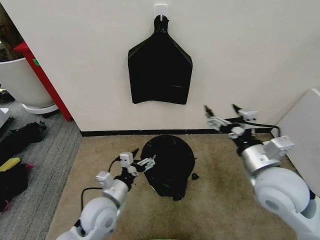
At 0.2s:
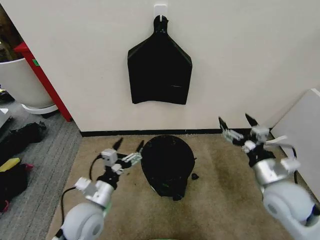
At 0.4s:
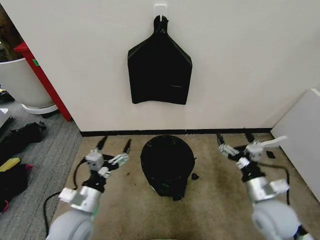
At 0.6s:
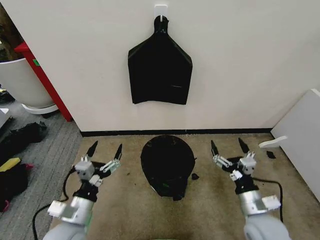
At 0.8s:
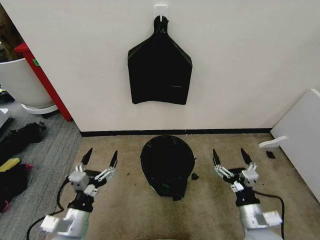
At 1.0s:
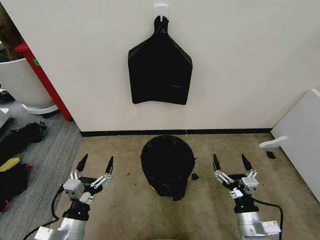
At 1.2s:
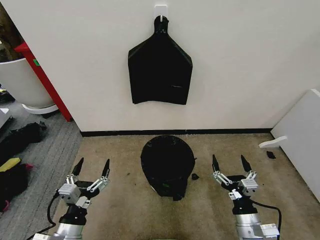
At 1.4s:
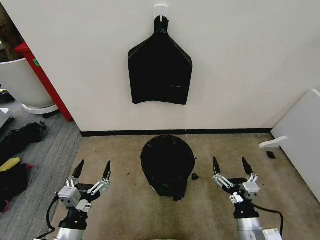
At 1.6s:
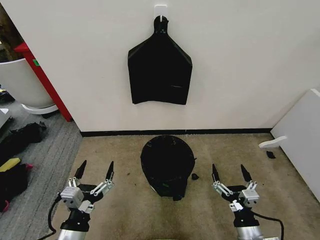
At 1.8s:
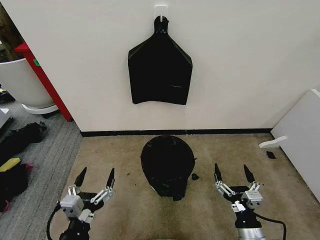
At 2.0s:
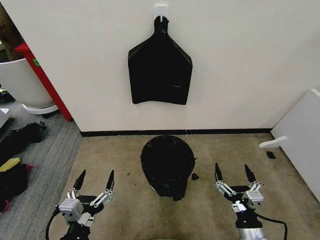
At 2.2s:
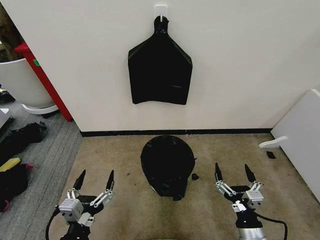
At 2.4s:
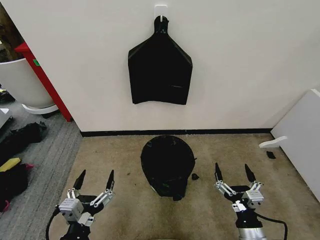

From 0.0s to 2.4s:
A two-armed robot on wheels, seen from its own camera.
Task of the whole recording: Place the garbage bag over the trash bin.
From 0.0s to 1.2s: The right gripper travels downward and backward by approximately 20 cm. The left gripper is displaced backward and to the left by some 15 cm.
From 1.2s to 2.4s: The left gripper shifts approximately 5 cm backward.

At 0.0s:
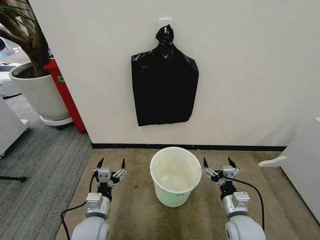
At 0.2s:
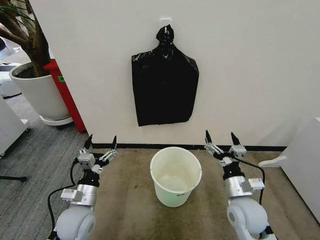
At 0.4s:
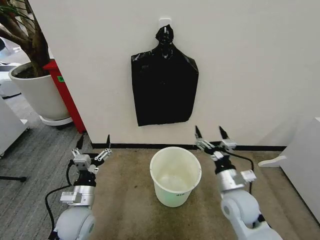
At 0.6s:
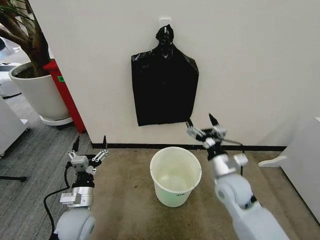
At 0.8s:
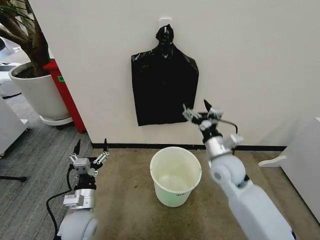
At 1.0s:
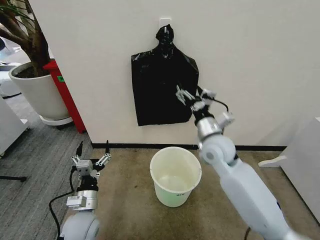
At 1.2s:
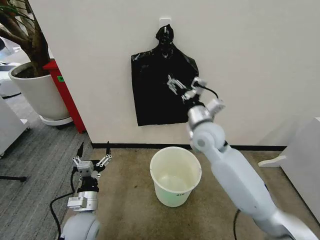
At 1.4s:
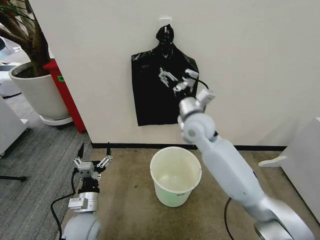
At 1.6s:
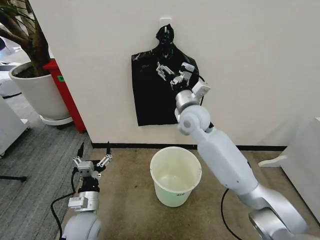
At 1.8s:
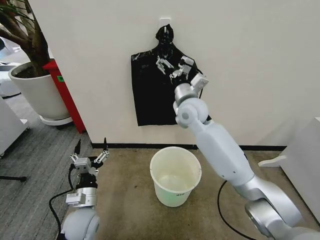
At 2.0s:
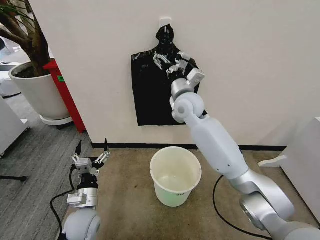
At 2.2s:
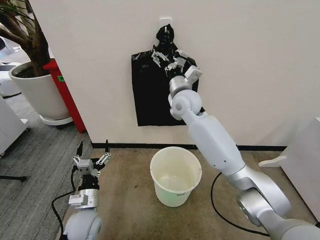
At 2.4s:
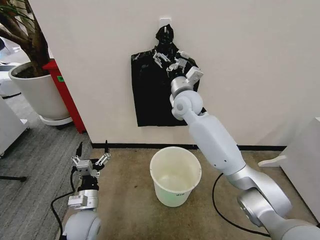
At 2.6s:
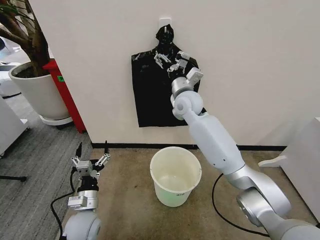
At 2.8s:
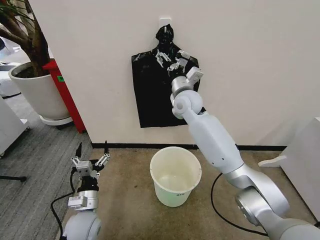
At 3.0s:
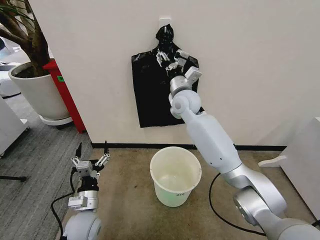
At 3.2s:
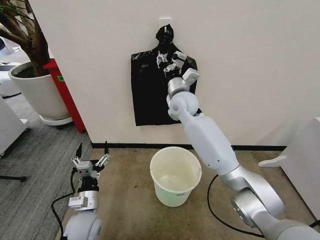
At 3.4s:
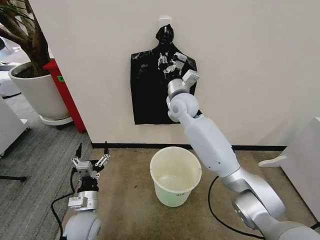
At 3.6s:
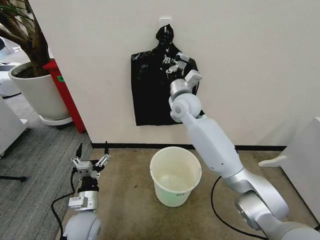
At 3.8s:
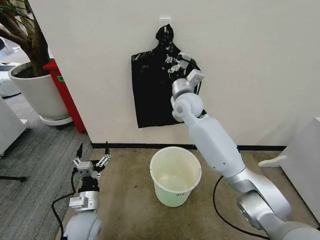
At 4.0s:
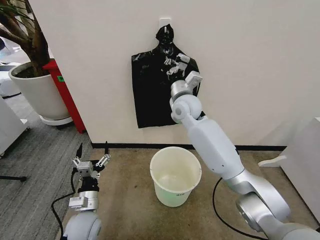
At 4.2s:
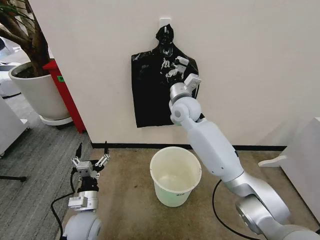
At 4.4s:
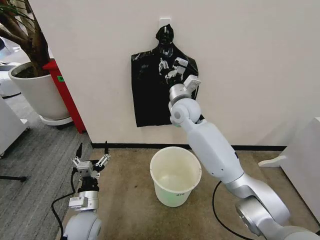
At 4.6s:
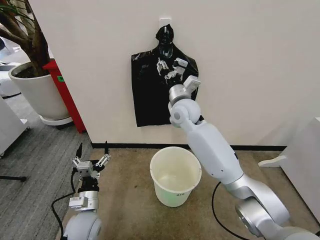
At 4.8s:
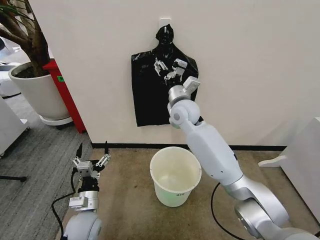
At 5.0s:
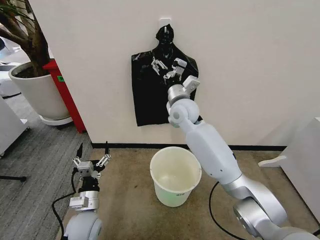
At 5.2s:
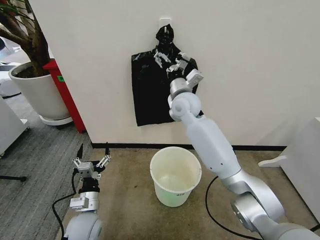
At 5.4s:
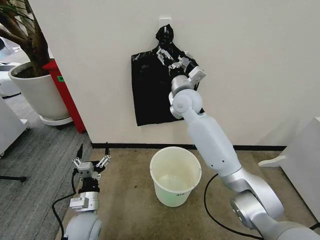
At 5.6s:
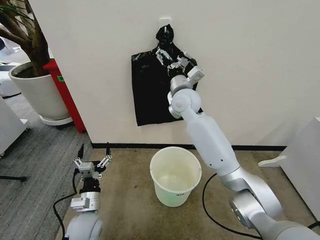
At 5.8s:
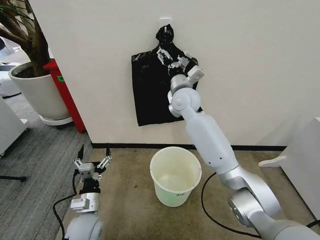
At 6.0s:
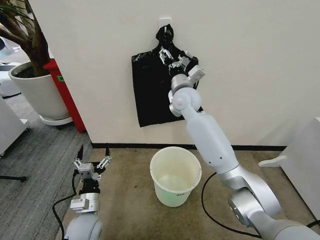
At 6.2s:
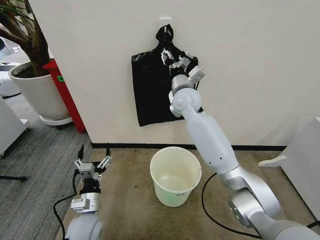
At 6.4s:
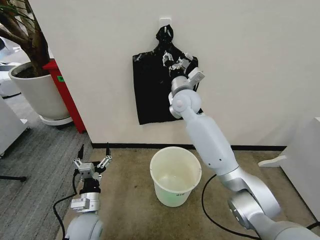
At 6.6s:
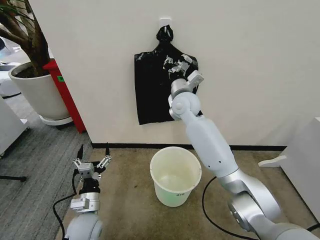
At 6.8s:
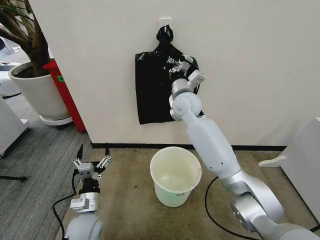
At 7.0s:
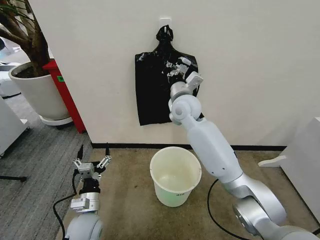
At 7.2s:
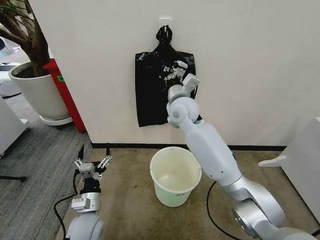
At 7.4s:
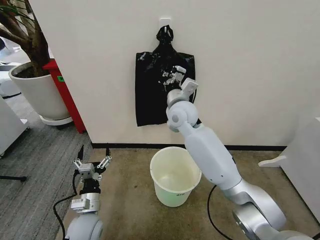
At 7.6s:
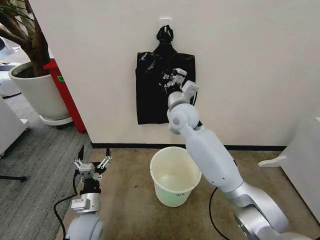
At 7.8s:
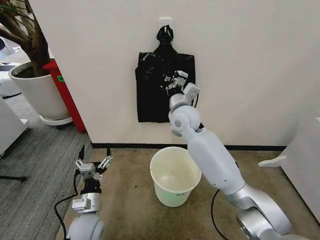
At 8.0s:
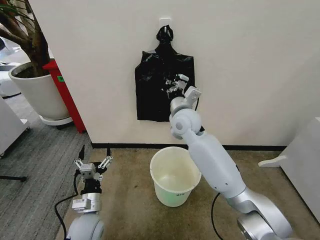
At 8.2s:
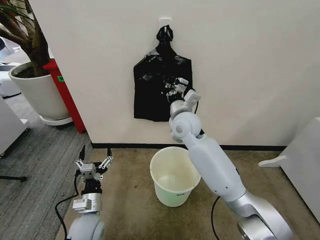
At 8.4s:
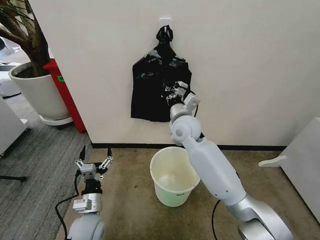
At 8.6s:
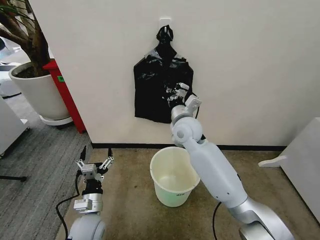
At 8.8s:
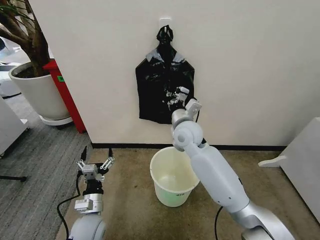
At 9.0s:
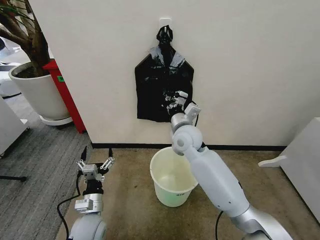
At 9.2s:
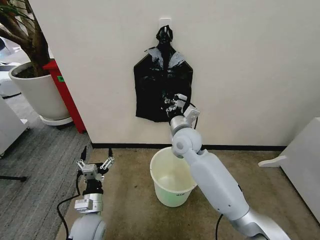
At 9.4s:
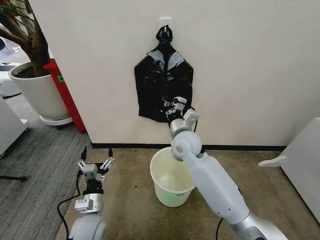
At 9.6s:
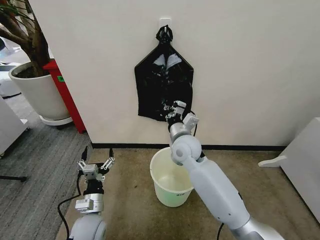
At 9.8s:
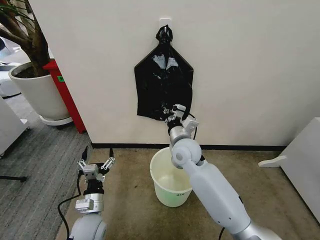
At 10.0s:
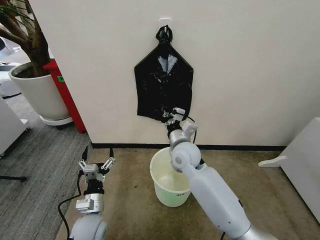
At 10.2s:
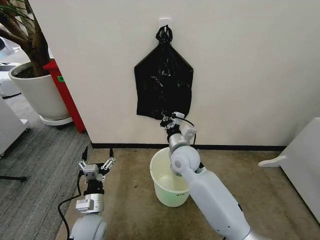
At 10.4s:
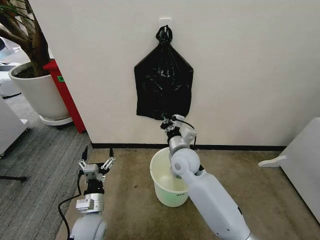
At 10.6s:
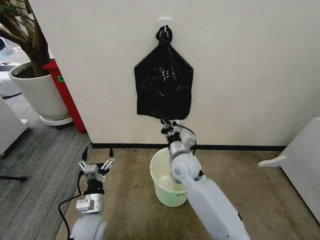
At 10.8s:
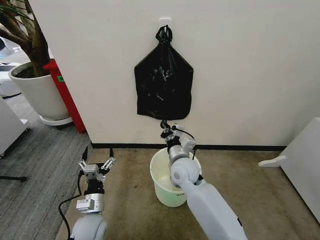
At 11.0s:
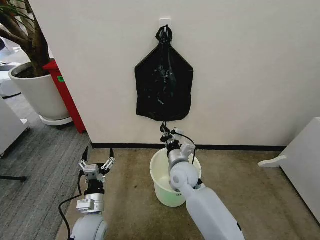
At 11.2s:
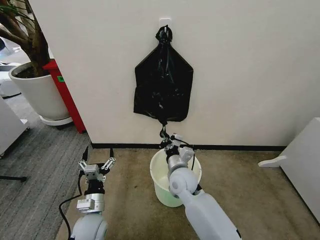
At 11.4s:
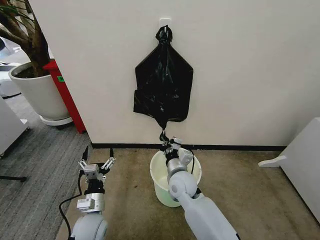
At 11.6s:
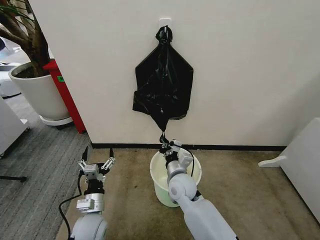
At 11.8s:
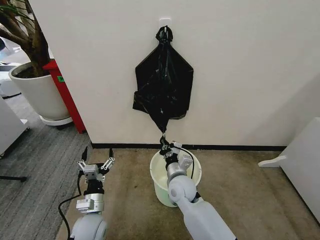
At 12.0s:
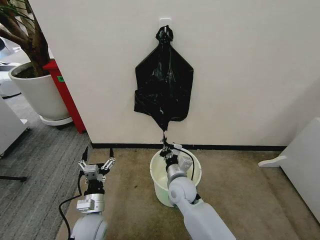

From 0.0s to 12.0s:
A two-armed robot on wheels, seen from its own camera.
Task of the whole recording: Place the garbage bag over the trash bin.
From 1.6s to 3.0s: The right gripper is displaced forward by approximately 5 cm, and closes its fingers.
From 3.0s to 4.4s: The right gripper closes its fingers.
From 4.4s to 6.0s: The right gripper opens.
From 6.0s to 7.6s: The right gripper is displaced backward by approximately 5 cm, and closes its fingers.
From 7.6s to 9.0s: The right gripper heads downward, covering about 5 cm.
From 9.0s to 10.4s: The right gripper moves downward, roughly 5 cm.
From 10.4s to 12.0s: The right gripper is displaced downward and backward by approximately 10 cm.

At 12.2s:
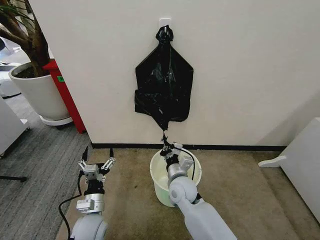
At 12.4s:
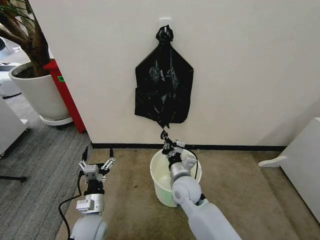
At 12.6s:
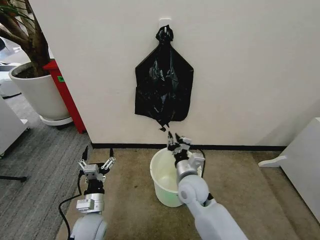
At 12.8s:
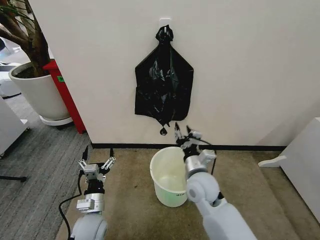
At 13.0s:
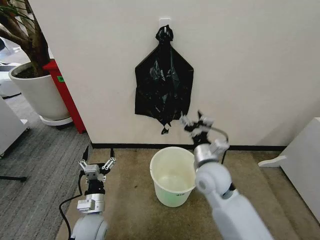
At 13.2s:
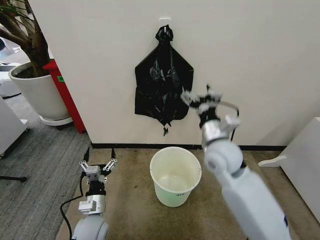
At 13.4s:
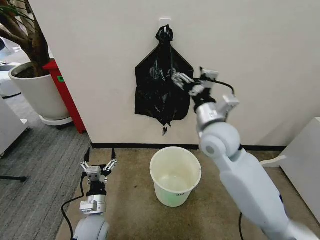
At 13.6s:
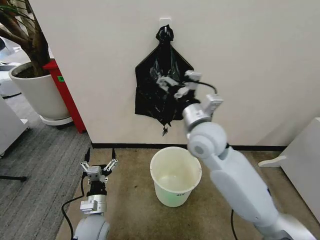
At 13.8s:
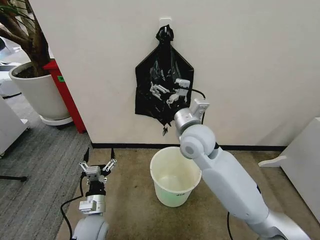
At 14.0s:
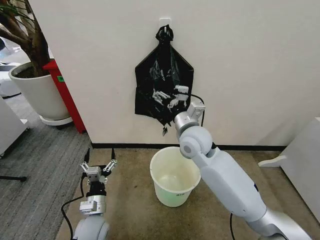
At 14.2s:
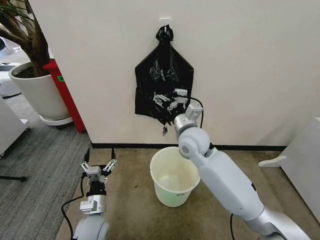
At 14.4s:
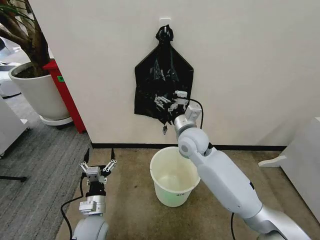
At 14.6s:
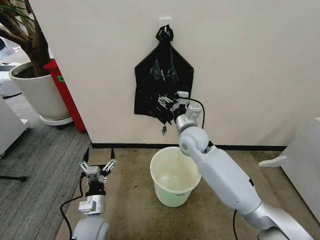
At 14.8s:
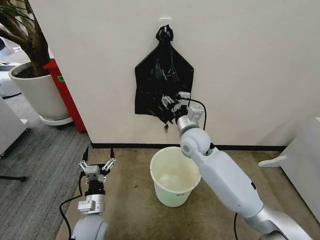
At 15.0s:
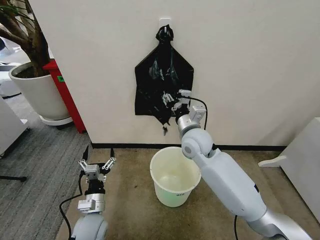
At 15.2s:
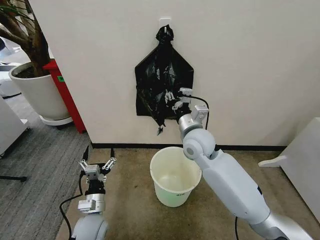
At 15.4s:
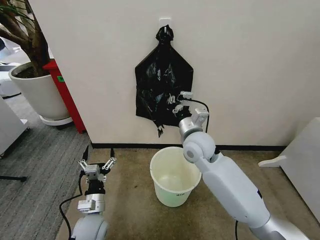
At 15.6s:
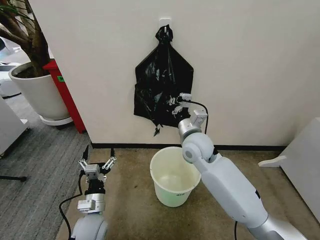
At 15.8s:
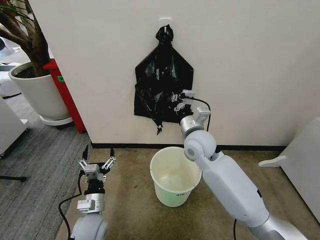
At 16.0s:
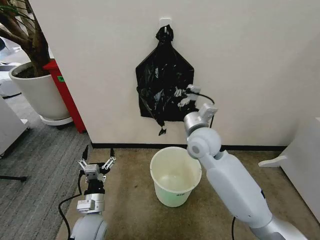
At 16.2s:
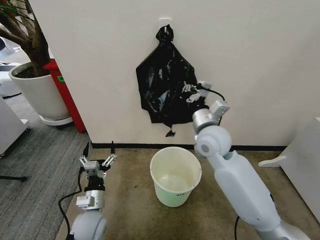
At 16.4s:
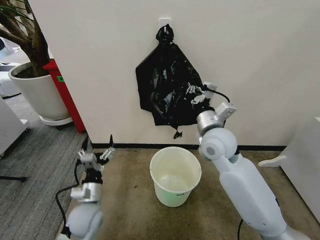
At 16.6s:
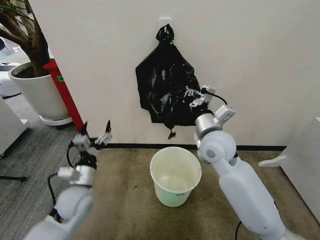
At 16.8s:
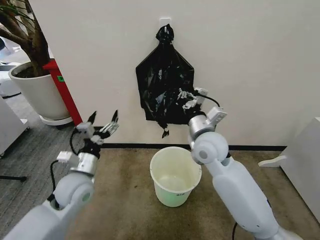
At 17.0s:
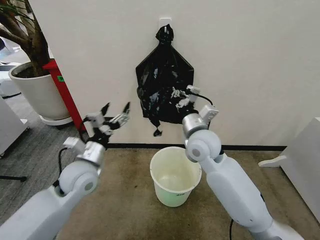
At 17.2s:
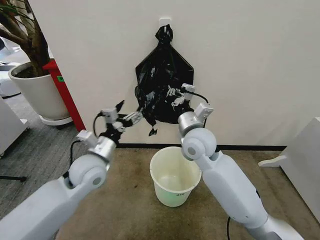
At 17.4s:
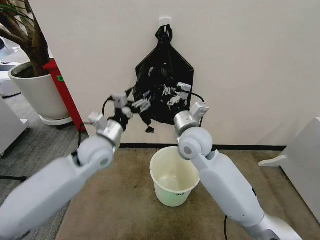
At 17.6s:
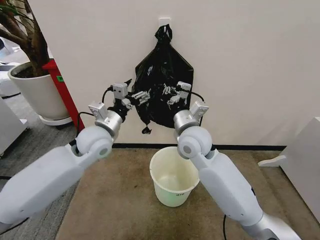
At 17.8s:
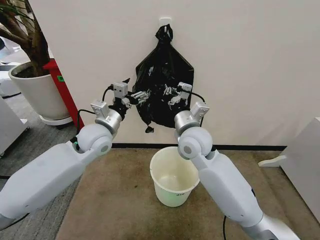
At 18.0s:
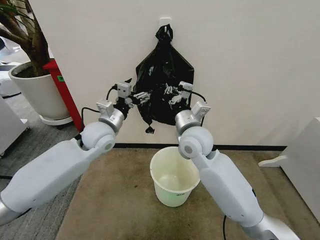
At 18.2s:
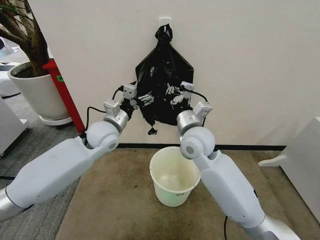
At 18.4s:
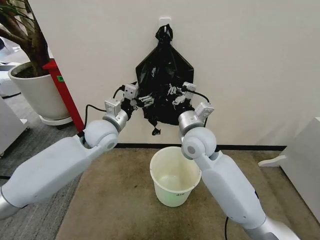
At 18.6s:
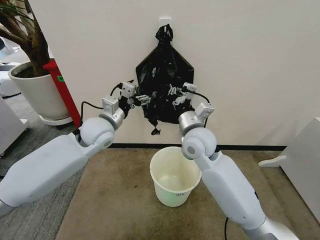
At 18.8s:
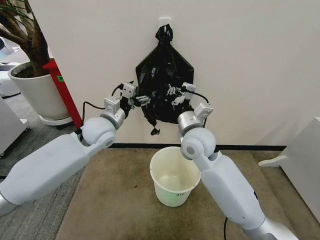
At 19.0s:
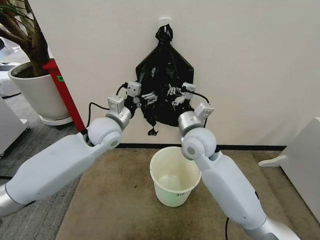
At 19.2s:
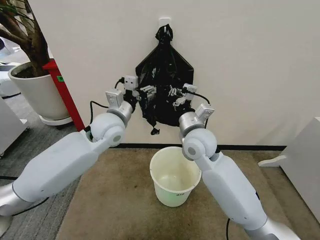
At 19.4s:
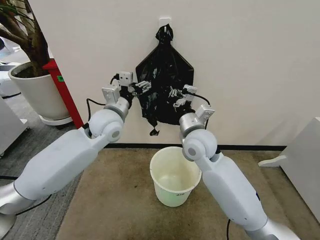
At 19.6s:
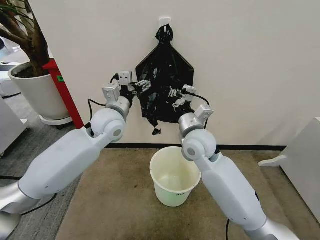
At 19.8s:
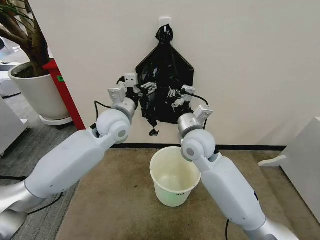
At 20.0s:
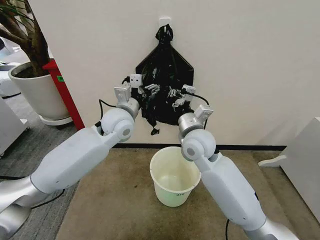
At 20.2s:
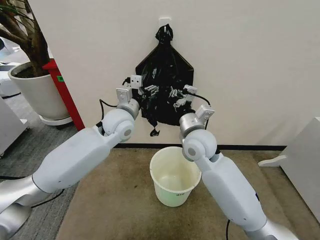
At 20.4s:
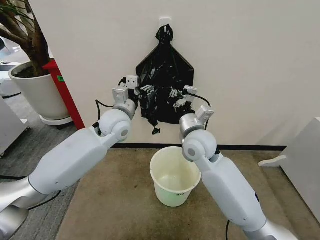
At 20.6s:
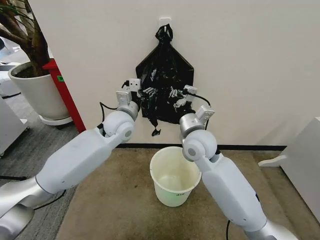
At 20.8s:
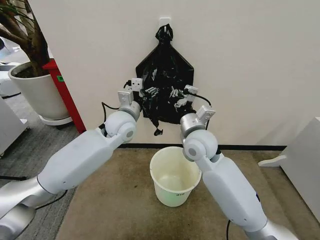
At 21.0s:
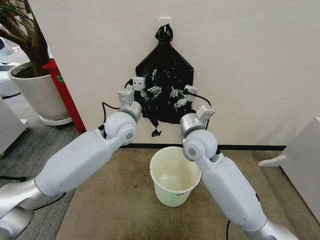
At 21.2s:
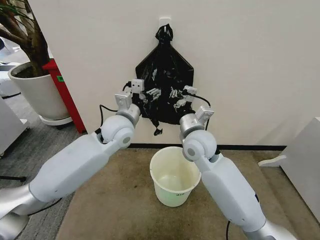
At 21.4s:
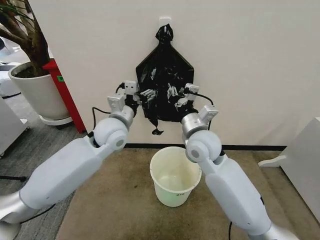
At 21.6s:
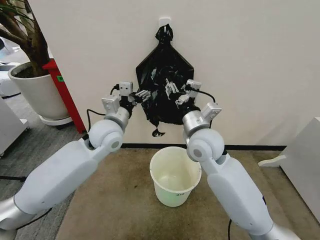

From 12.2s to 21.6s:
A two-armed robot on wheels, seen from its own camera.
Task of the whole recording: Place the garbage bag over the trash bin.
From 12.2s to 13.8s: The right gripper travels upward by about 20 cm, and opens its fingers.
From 13.8s to 15.4s: The right gripper closes.
From 15.4s to 17.0s: The left gripper heads upward and forward, covering approximately 20 cm.
From 17.0s to 18.4s: The left gripper travels forward and upward by some 15 cm.
From 18.4s to 20.0s: The left gripper moves to the right, about 5 cm.
From 20.0s to 21.6s: The left gripper changes place by roughly 5 cm, while the right gripper opens its fingers.
